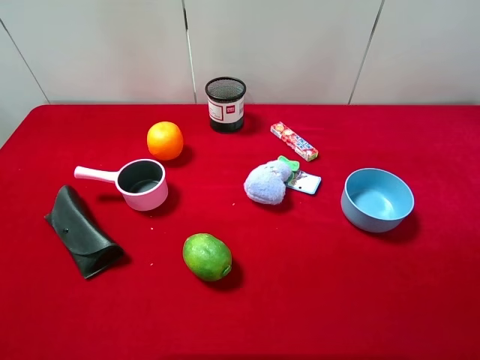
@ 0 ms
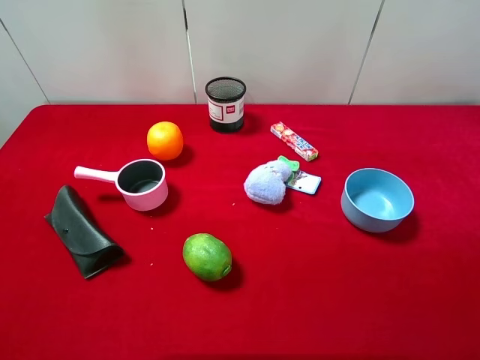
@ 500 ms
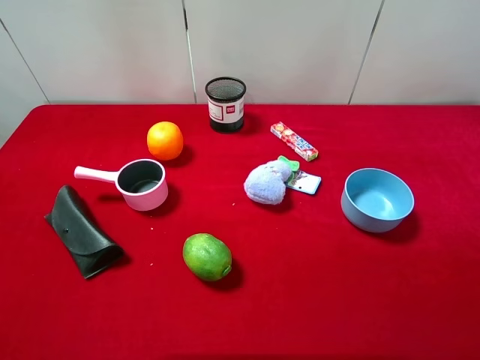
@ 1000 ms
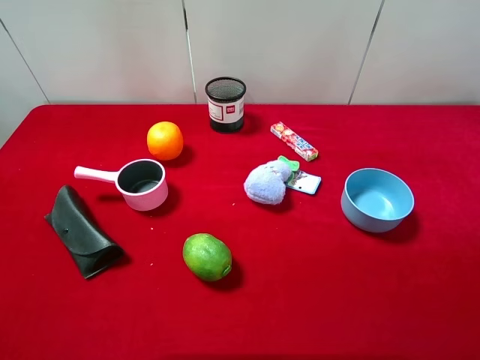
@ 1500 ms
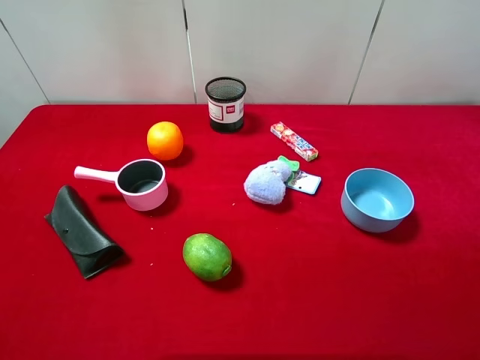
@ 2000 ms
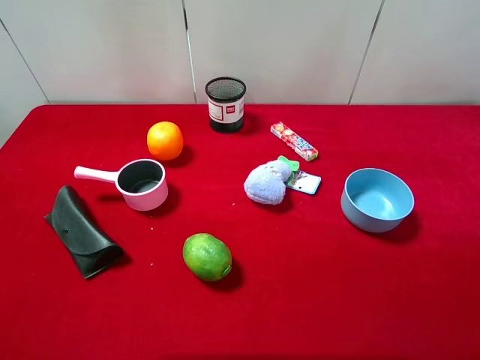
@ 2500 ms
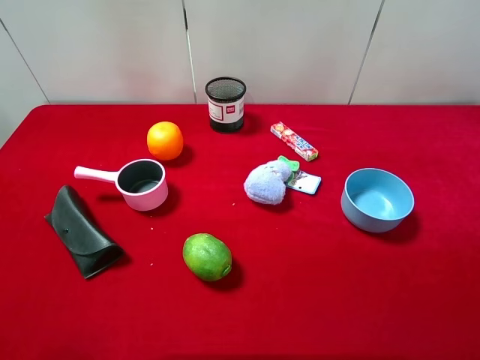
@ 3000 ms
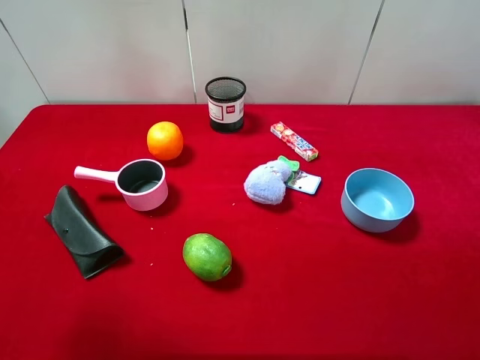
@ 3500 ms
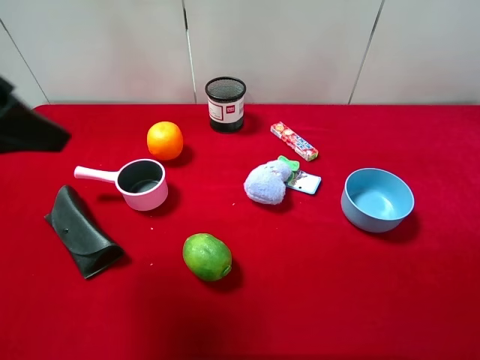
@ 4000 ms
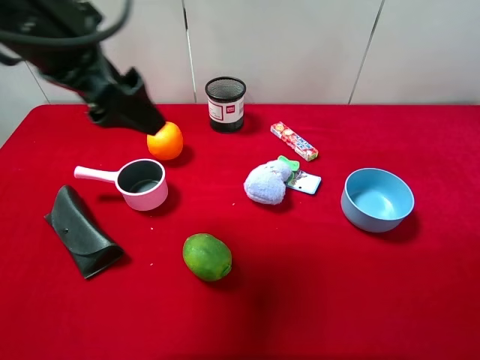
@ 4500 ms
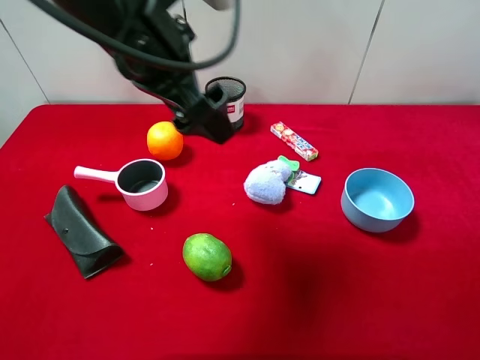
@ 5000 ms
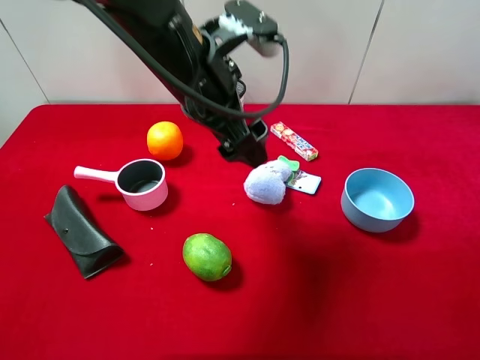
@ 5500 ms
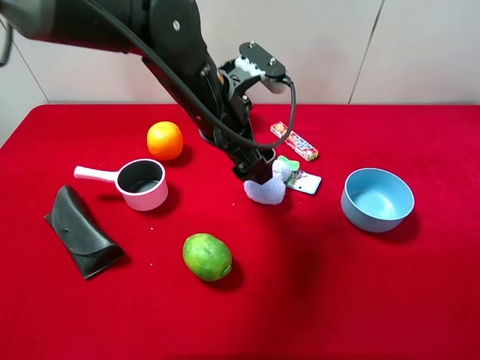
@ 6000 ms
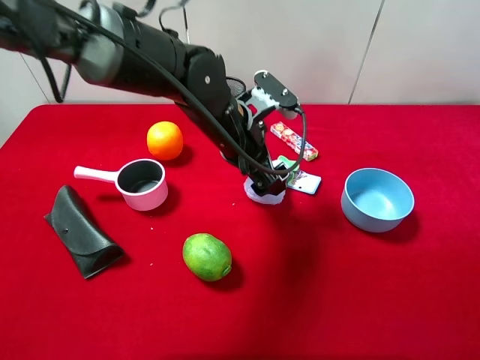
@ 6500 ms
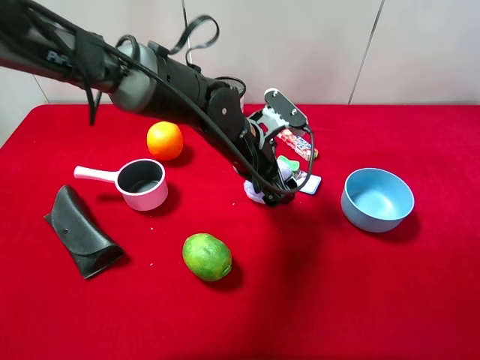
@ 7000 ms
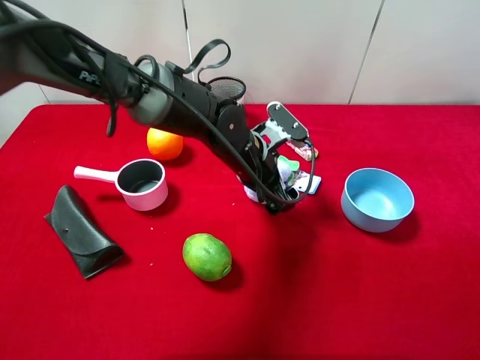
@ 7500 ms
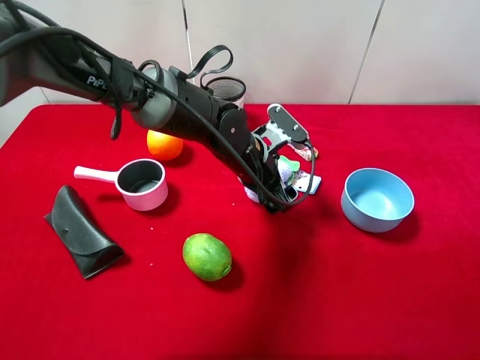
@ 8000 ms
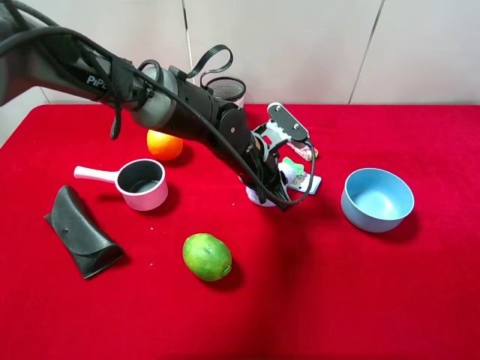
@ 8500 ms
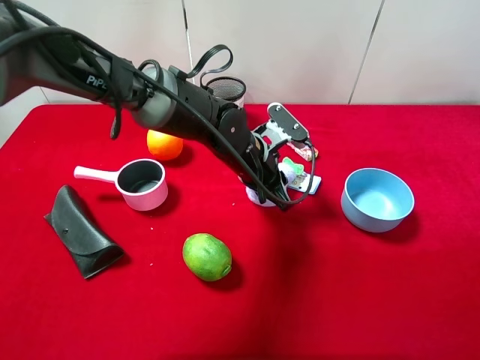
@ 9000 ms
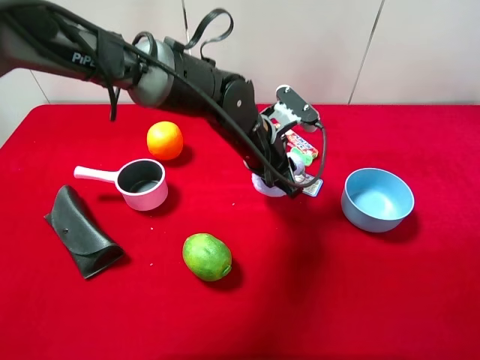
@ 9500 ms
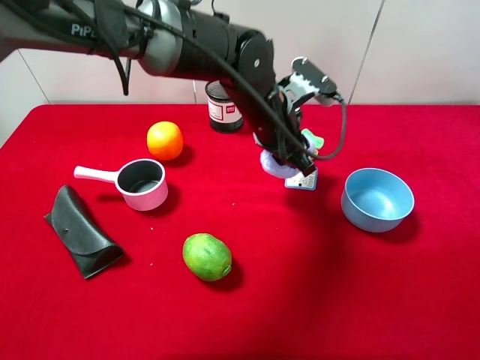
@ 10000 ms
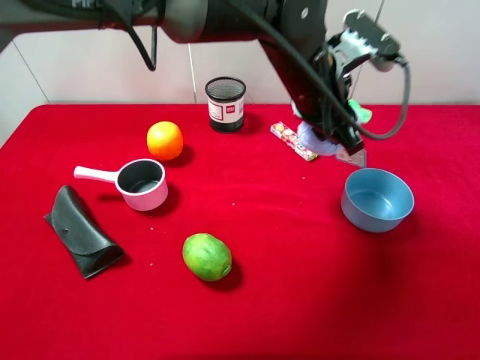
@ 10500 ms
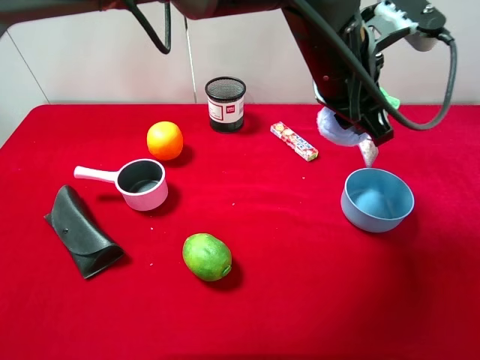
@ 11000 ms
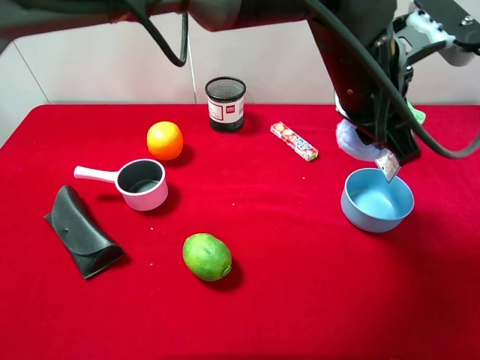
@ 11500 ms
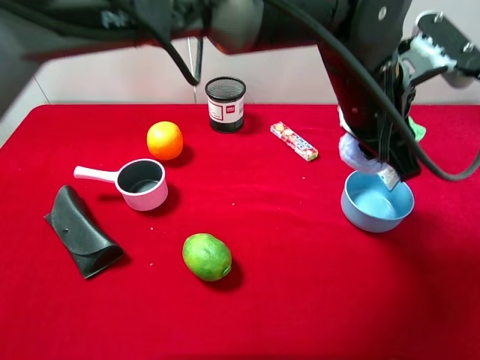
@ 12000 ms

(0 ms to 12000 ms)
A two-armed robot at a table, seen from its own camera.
Task of the whole recording: pick up an item with a gripper and place it in a random container on the desktop.
0 ms - 2000 ms: Both grippers stay put.
2000 ms - 4000 ms: The left gripper shifts some 20 cm forward.
4000 ms - 6000 ms: The left gripper is displaced to the right, downward and forward by approximately 25 cm.
6000 ms - 8000 ms: The left gripper moves downward, approximately 10 cm.
8000 ms - 10000 ms: The left gripper is displaced upward by approximately 10 cm, and closes.
10000 ms - 12000 ms: The left gripper heads to the right, upward and backward, covering roughly 15 cm.

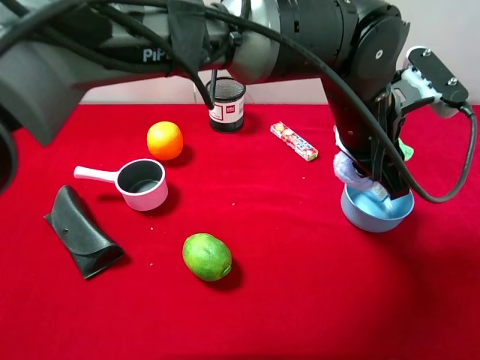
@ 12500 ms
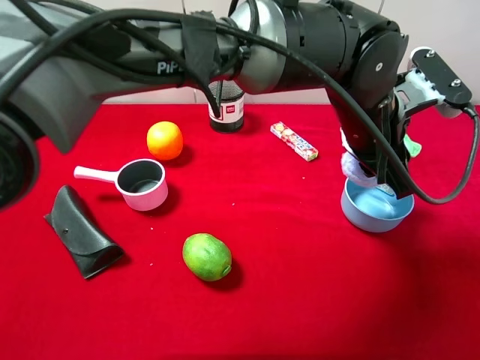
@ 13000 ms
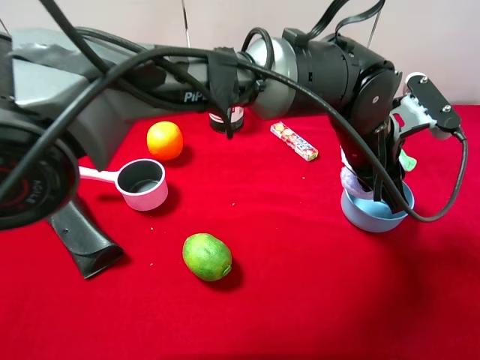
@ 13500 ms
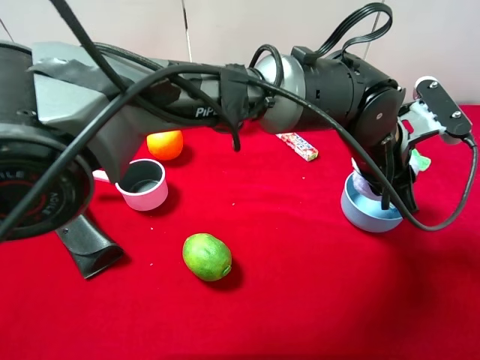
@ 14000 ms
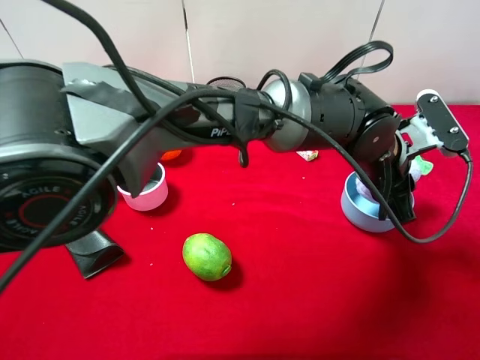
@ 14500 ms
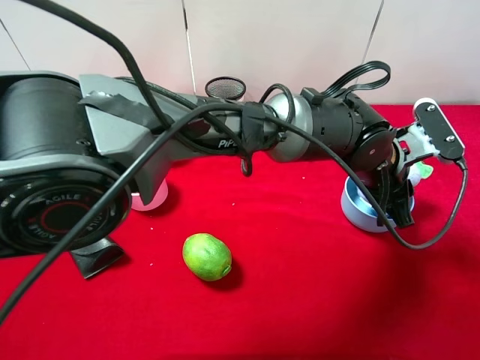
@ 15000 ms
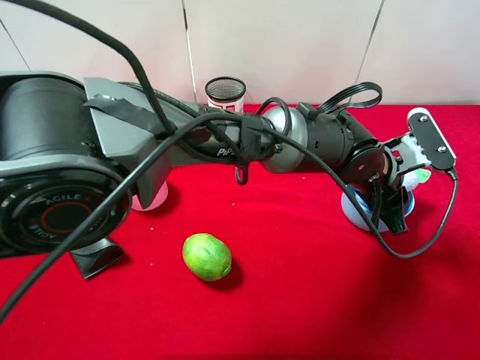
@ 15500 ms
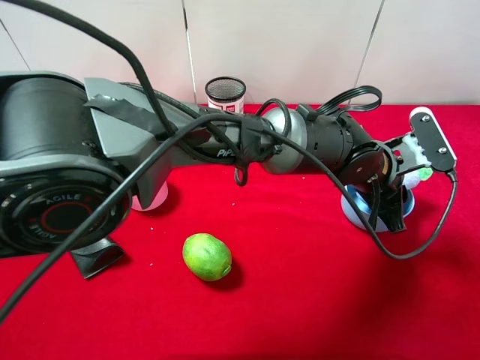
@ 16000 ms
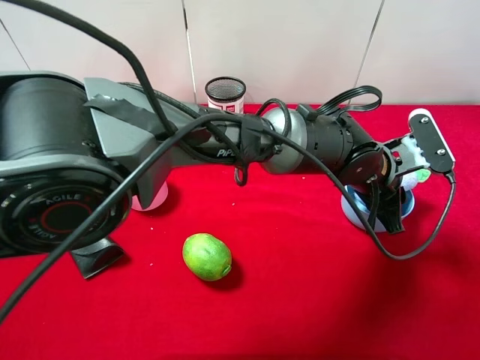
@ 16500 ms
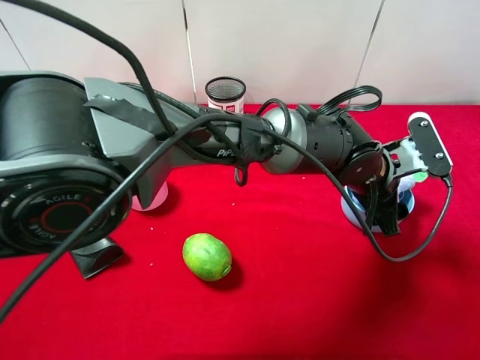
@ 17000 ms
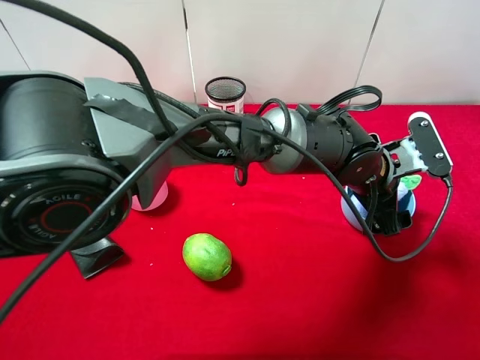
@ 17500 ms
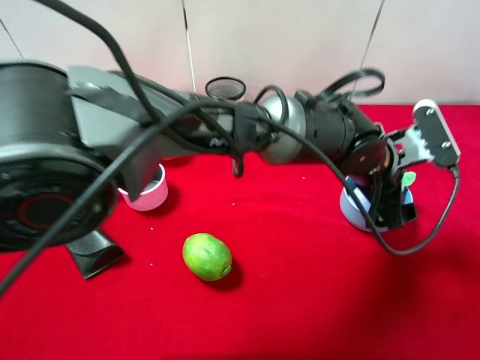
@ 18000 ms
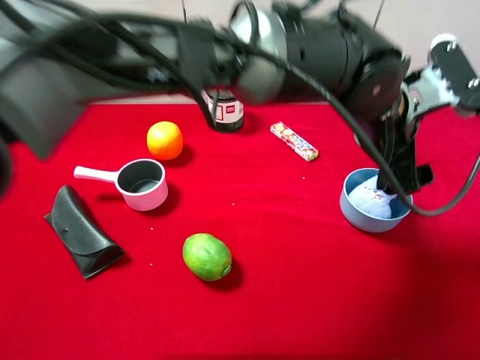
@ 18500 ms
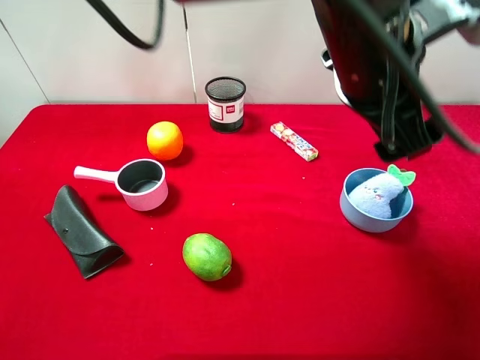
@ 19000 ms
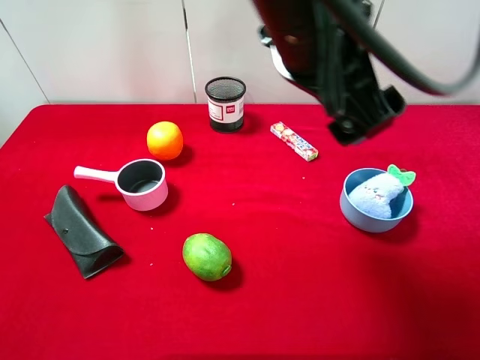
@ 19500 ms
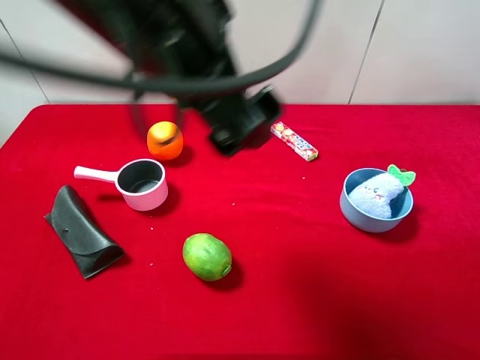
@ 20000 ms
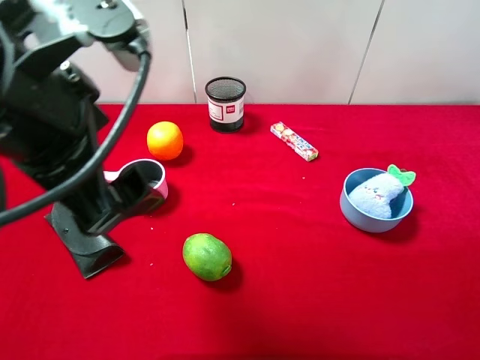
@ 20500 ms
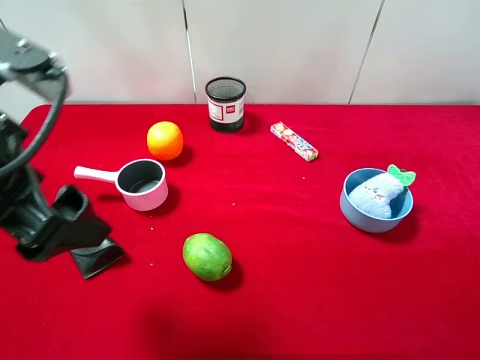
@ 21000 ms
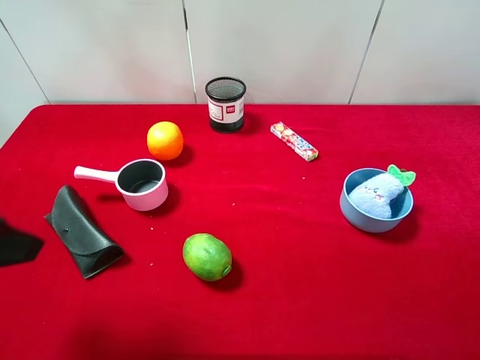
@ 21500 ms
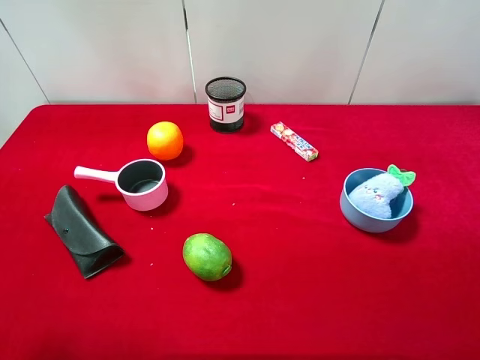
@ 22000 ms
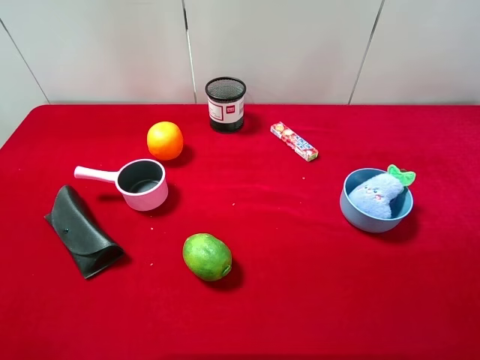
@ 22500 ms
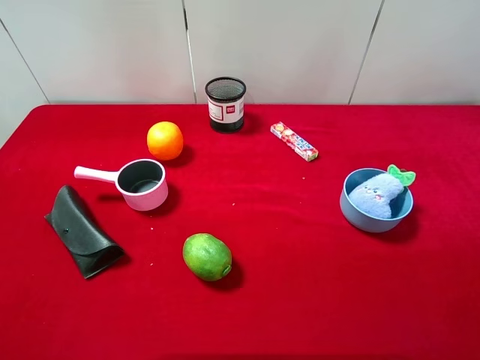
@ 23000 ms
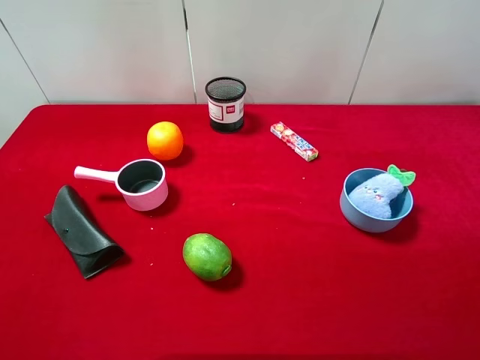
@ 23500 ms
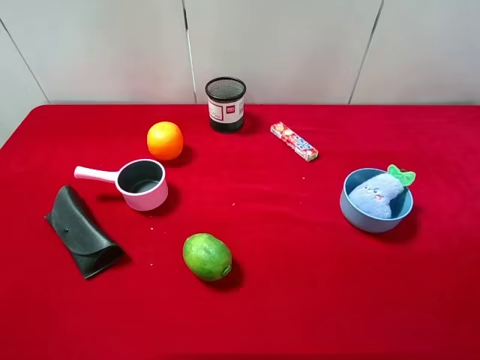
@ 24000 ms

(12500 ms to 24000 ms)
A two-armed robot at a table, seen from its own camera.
Task of the whole recording: pick up an item with a gripper and place it in a random container on the desktop.
12500 ms - 14500 ms: The left gripper shifts roughly 5 cm downward.
16500 ms - 18500 ms: The left gripper shifts some 10 cm upward, and opens.
18500 ms - 20000 ms: The left gripper heads to the left, upward and backward, covering roughly 25 cm.
20000 ms - 22000 ms: The left gripper heads to the left and backward, covering approximately 25 cm.
